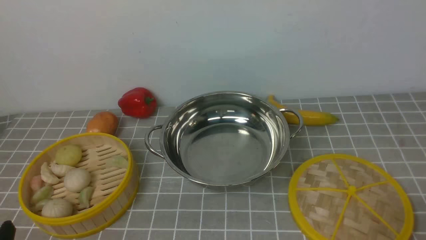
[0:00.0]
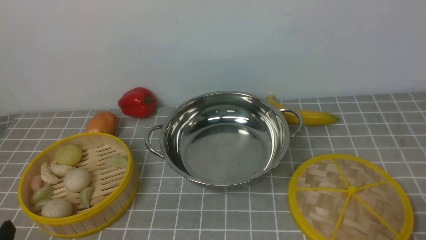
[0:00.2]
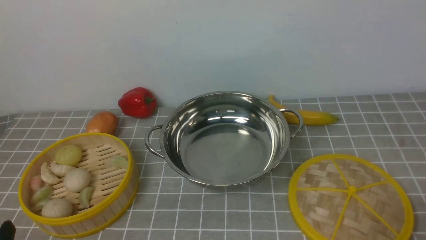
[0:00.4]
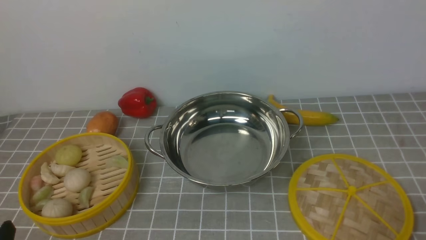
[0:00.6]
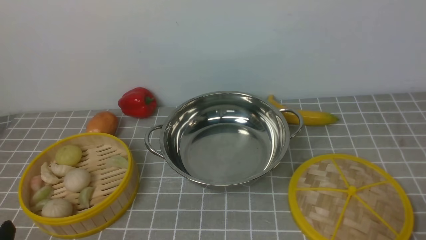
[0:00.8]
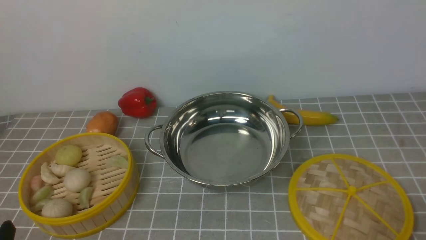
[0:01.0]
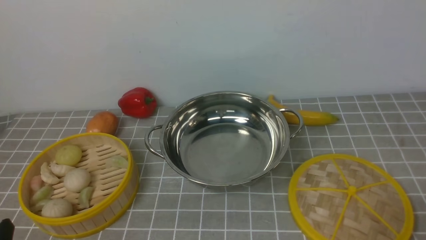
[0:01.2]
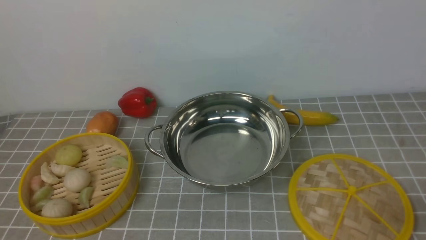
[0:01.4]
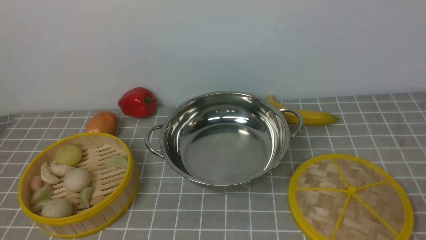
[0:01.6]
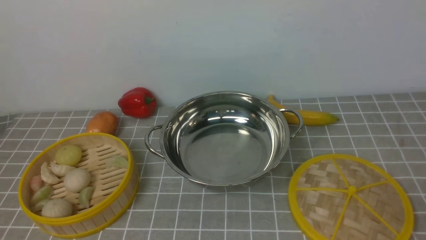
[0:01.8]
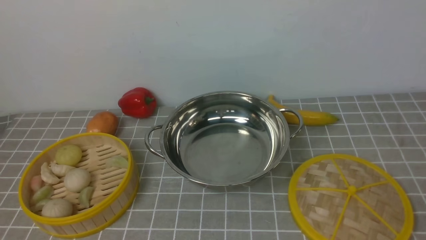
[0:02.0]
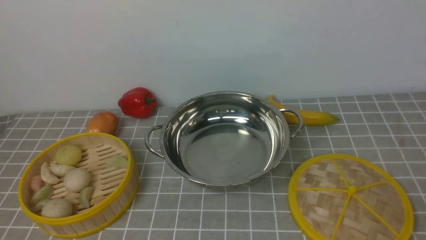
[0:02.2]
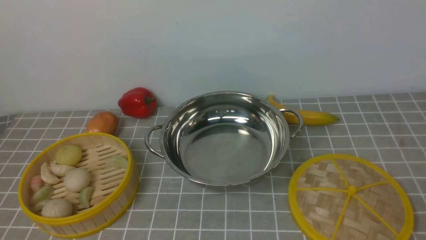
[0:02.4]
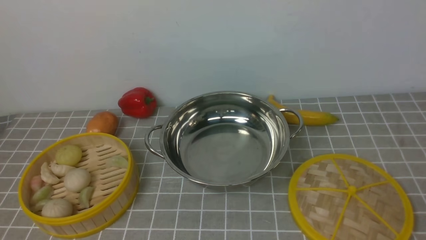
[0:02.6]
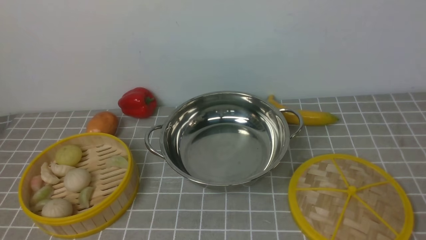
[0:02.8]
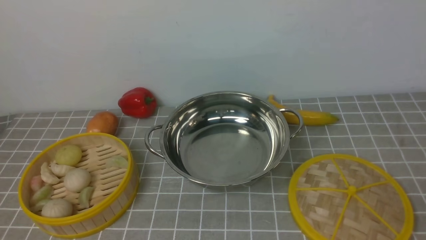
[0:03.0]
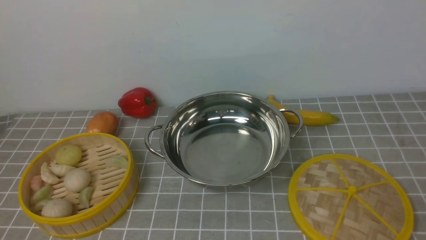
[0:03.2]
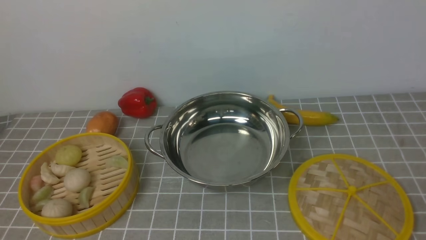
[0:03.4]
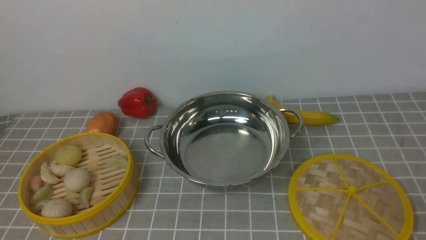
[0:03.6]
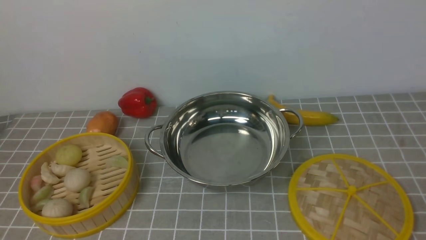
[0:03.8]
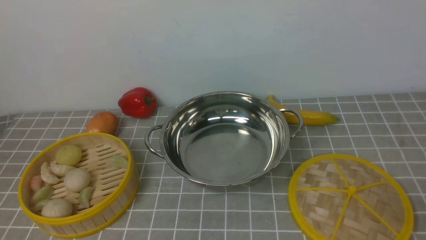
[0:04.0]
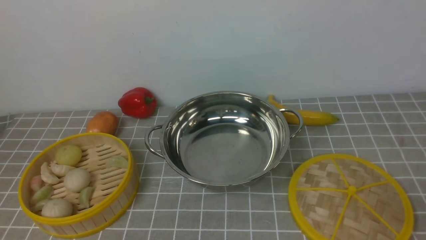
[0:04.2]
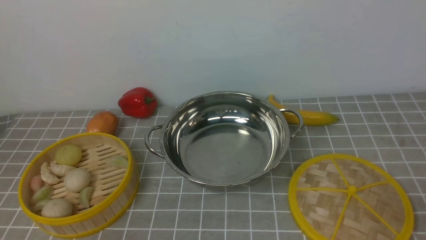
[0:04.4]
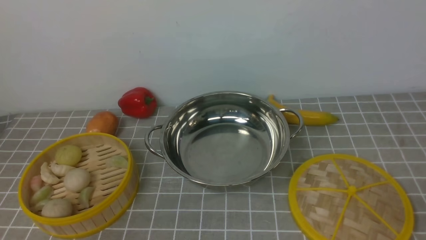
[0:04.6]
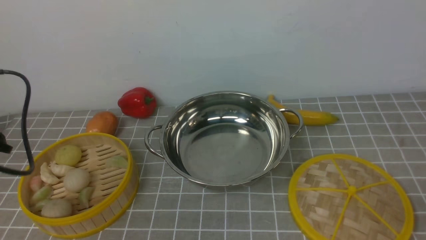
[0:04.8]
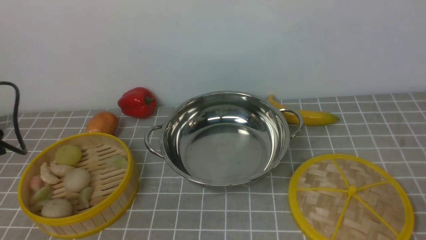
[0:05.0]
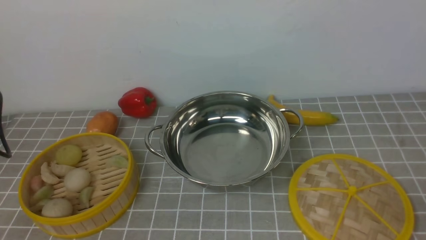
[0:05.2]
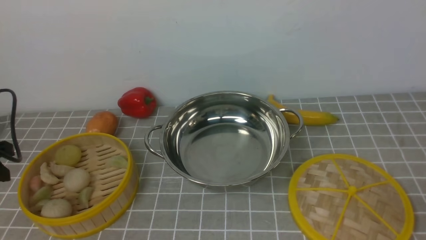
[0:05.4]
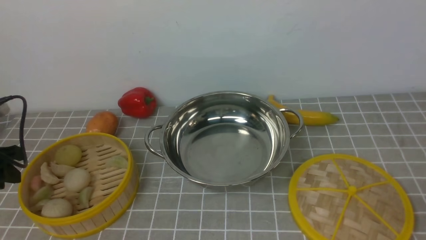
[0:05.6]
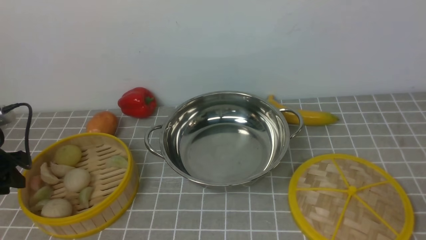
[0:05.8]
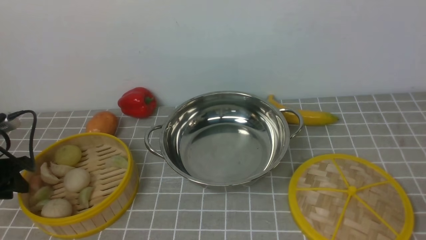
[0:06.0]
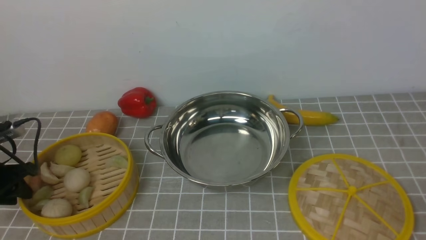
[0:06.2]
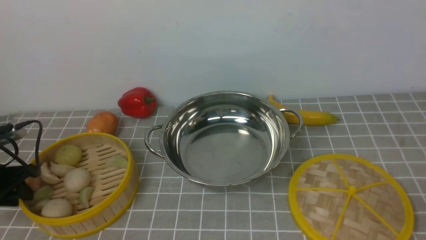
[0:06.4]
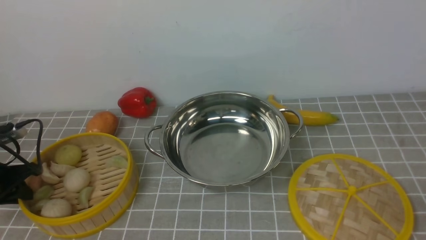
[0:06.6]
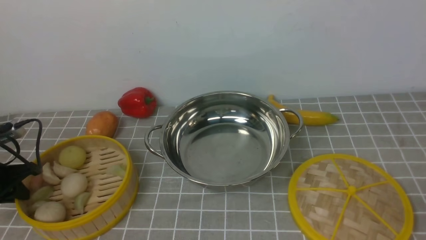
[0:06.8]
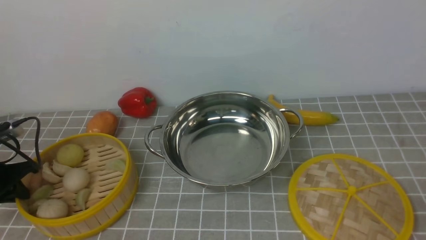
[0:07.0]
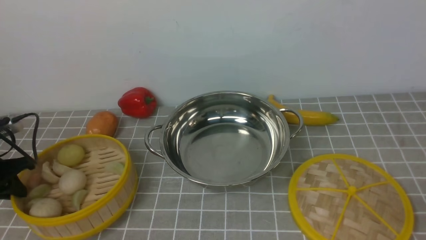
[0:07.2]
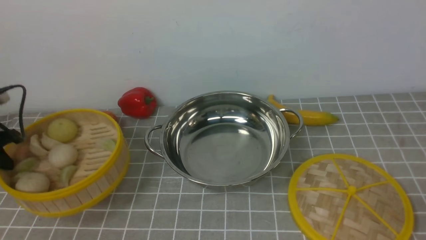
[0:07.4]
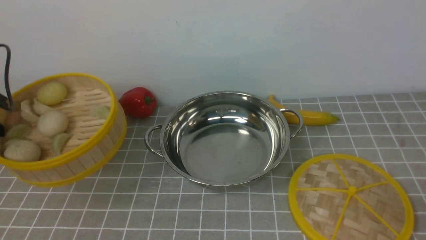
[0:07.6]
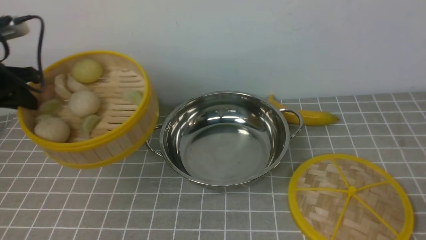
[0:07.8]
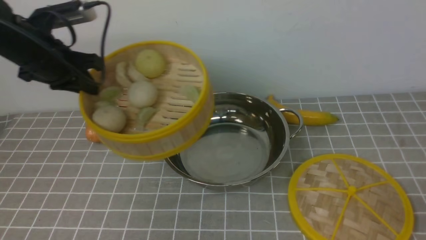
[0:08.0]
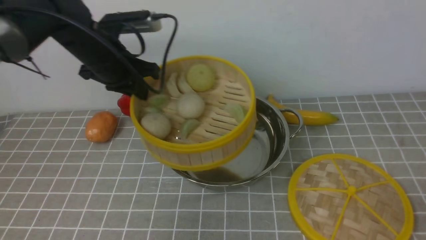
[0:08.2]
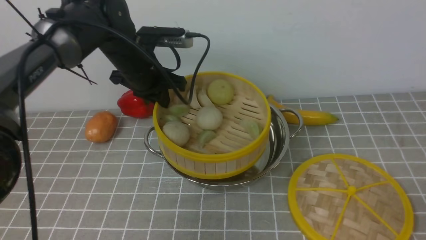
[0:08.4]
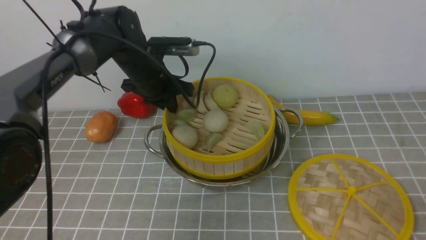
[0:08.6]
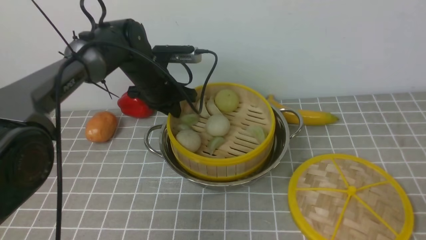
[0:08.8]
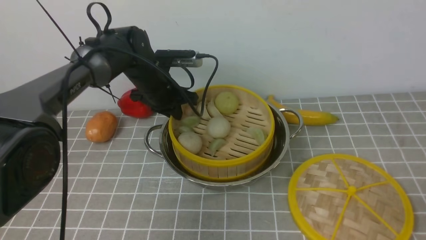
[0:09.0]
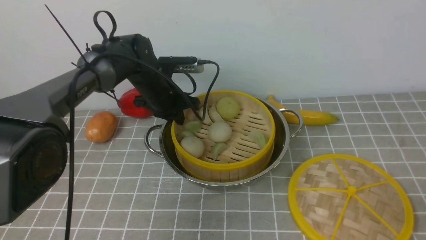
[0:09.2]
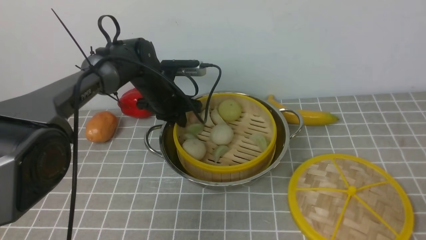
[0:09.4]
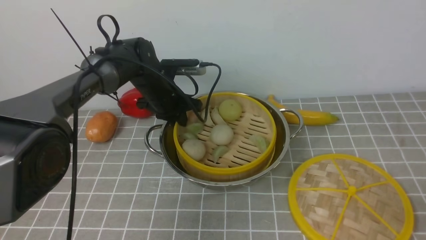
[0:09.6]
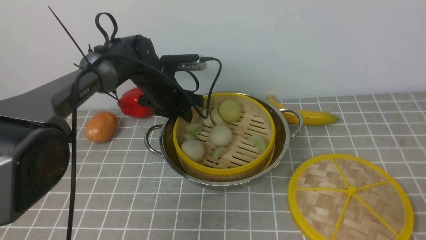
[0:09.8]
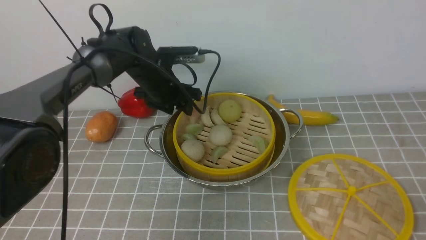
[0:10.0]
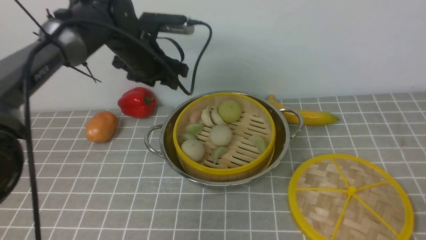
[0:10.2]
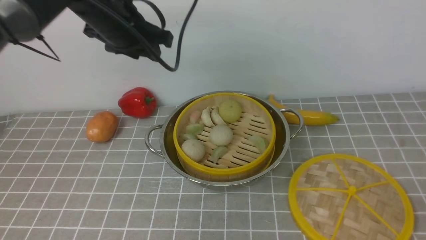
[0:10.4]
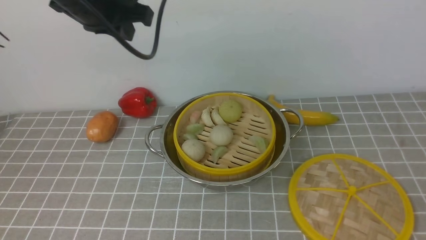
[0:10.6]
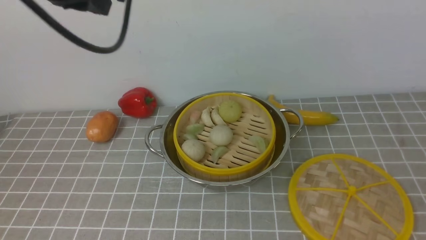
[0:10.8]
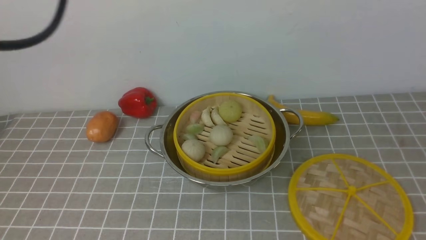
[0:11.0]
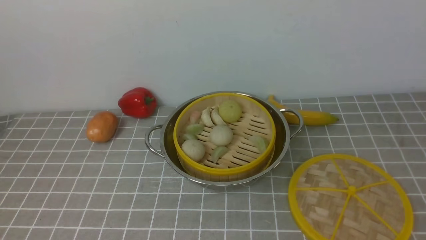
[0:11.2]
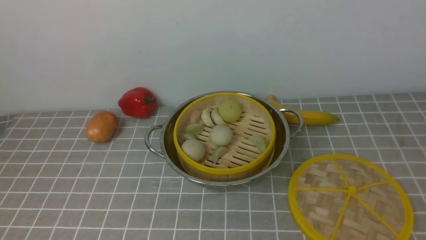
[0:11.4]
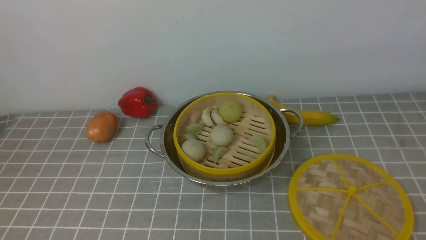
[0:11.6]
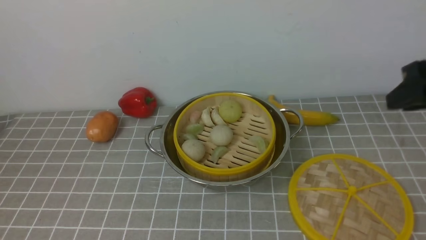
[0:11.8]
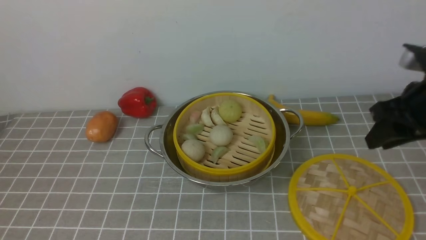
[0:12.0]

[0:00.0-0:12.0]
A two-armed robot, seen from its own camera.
Task of the whole recording: place the steamer in the pot on the grey tablecloth, and put the lid on the steamer.
Step, 0:00.0 to 0:07.2: use the left arm to lift the steamer closest to it.
Step, 0:07.4 to 0:10.0: use the left arm to put the steamer into the iron steamer pot in the middle.
0:04.4 to 0:06.0: The left gripper moves downward, forward and to the left, approximately 25 cm.
0:06.0 to 0:07.6: The left gripper is displaced upward and forward by roughly 10 cm, and closes.
0:07.6 to 0:09.0: The left gripper heads to the right and forward, covering about 30 cm.
0:09.0 to 0:10.4: The left gripper heads upward, covering about 15 cm, and opens.
0:10.4 to 0:12.0: The left gripper is displaced backward by approximately 35 cm, and closes. The right gripper shifts roughly 25 cm forward.

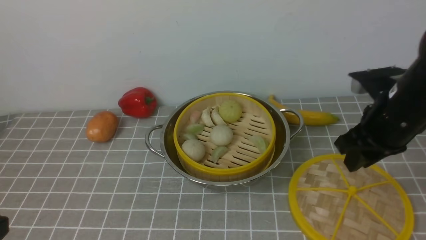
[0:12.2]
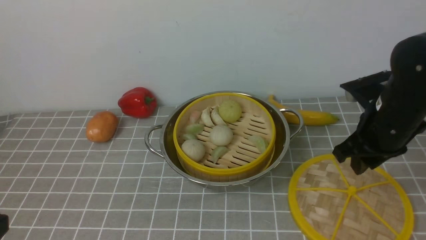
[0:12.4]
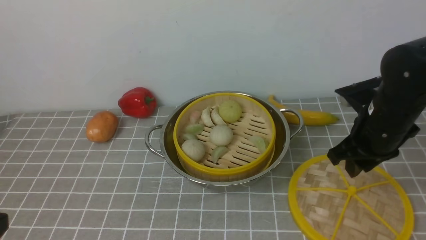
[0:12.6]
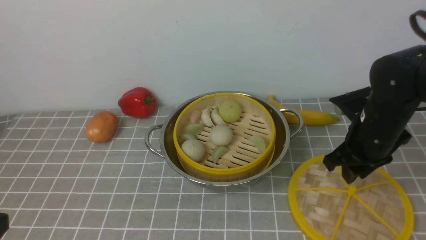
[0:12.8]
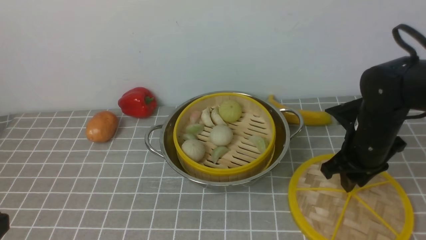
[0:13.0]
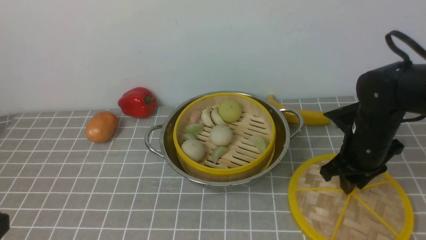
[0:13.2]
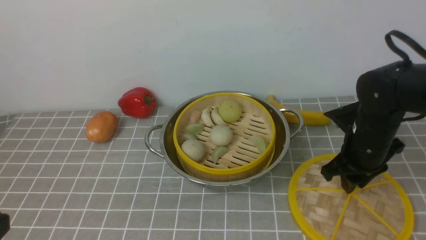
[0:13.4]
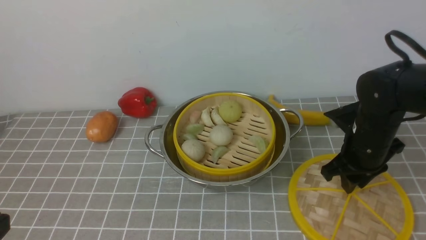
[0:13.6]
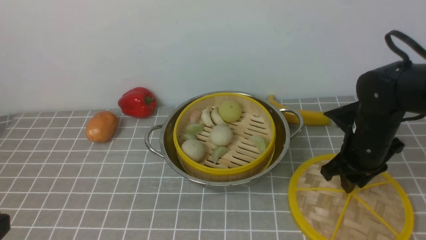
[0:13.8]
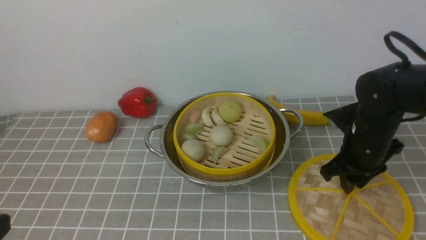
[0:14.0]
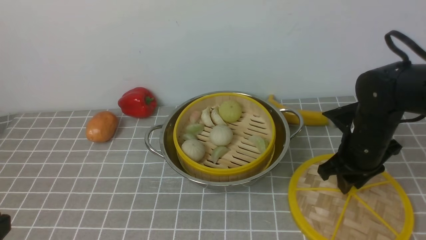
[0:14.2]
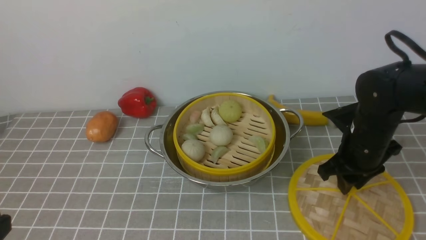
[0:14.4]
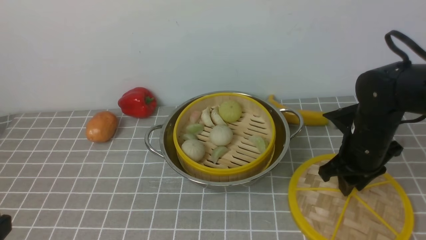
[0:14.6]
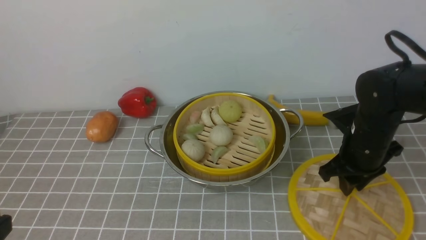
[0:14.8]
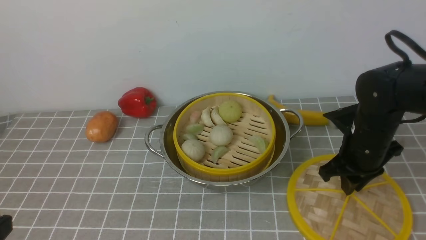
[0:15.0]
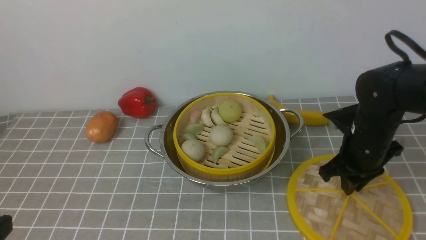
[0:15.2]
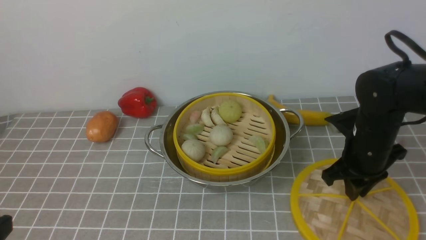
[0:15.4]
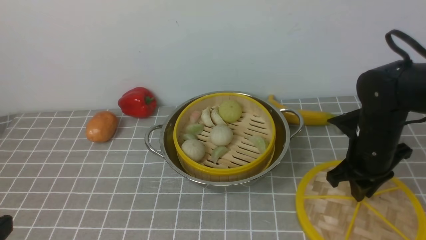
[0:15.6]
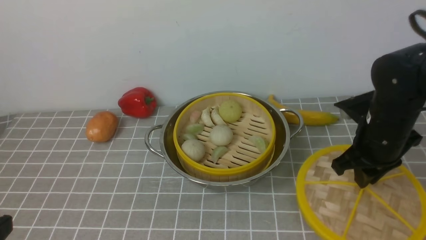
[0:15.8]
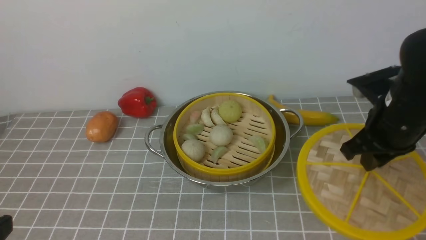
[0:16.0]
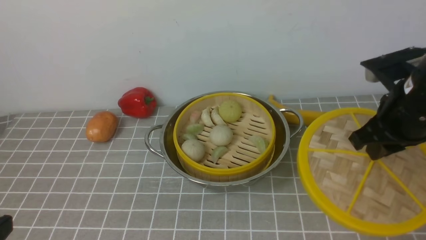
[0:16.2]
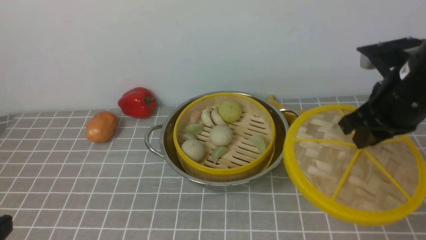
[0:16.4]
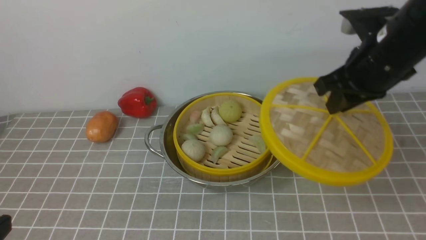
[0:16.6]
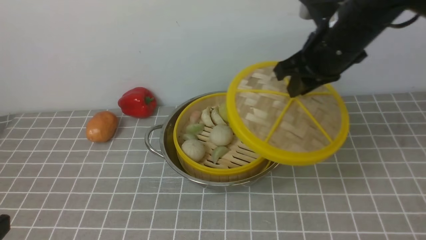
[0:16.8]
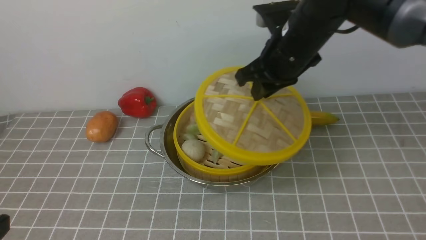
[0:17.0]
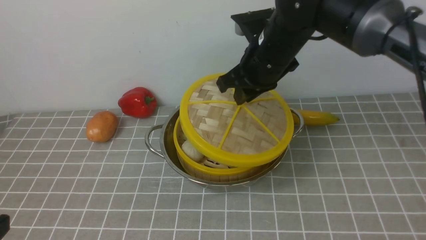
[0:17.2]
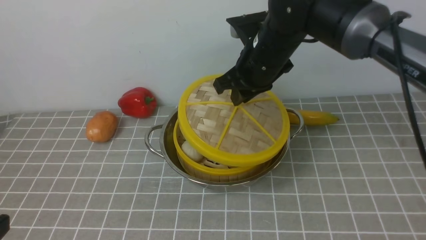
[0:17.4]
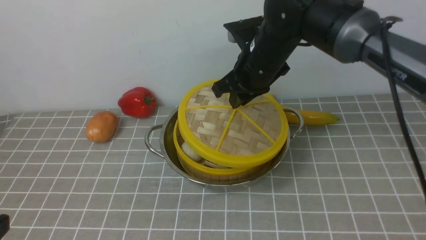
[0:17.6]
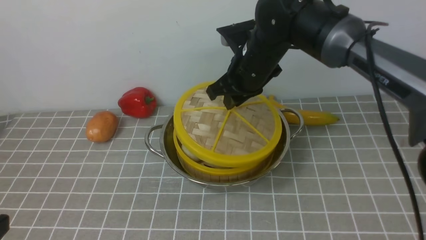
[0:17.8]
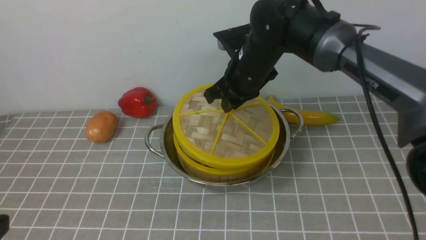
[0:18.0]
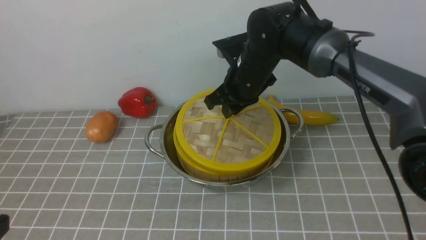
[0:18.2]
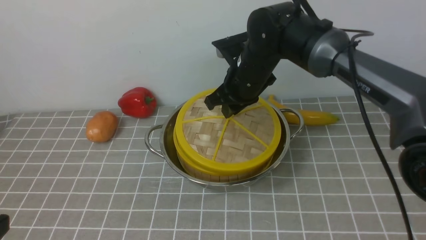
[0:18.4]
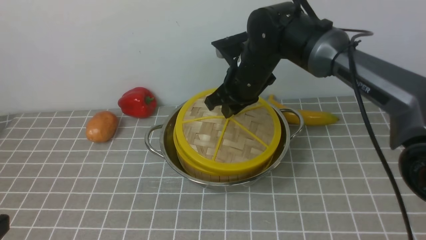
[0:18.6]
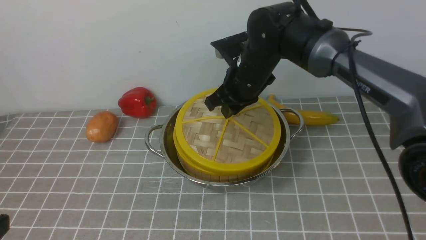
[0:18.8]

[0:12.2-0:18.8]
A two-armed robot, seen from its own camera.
Task of the whole recording: place the steamer in the pot on the grey tablecloth, and put the lid on the steamer.
Step, 0:12.2 to 0:15.6: use the right arm to lift the lid of the steamer.
0:12.2 to 0:13.8: The right gripper heads downward, covering some 10 cm.
0:13.8 to 0:15.4: Both grippers stay put.
0:15.4 to 0:17.2: The right gripper moves to the left, upward and forward, roughly 20 cm.
0:17.2 to 0:18.8: The right gripper heads downward, covering roughly 5 cm.
